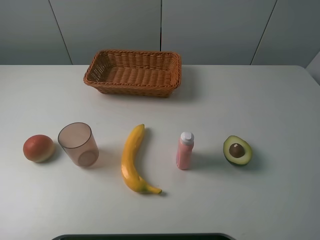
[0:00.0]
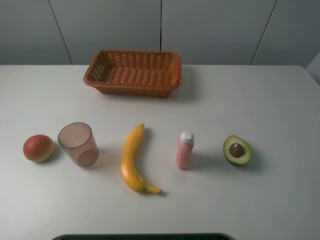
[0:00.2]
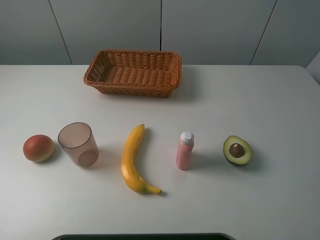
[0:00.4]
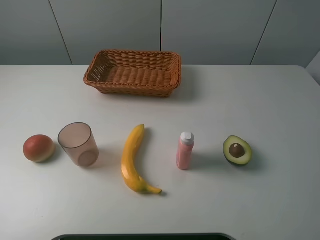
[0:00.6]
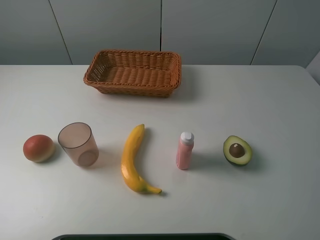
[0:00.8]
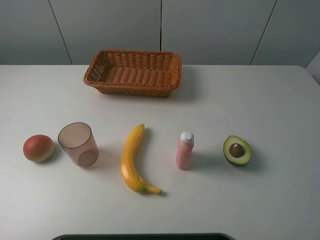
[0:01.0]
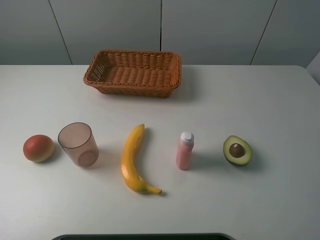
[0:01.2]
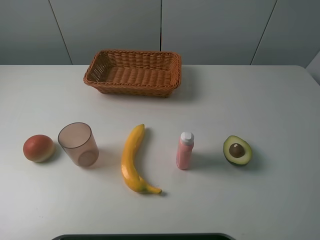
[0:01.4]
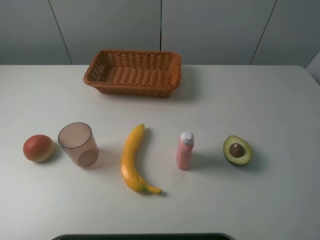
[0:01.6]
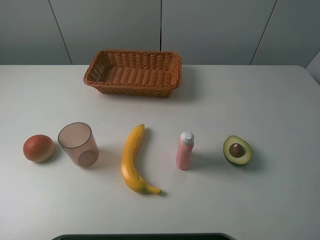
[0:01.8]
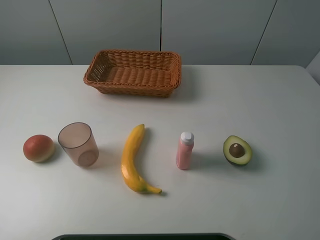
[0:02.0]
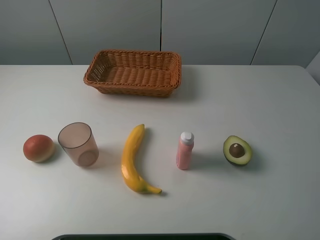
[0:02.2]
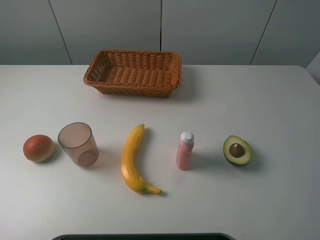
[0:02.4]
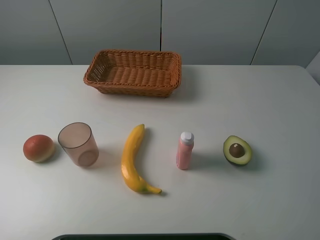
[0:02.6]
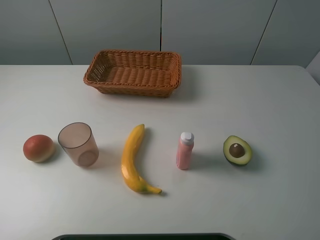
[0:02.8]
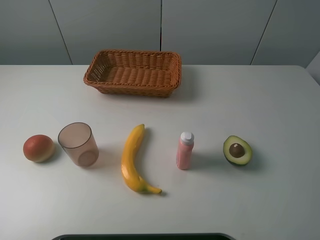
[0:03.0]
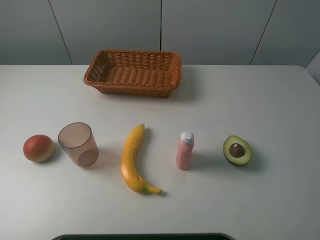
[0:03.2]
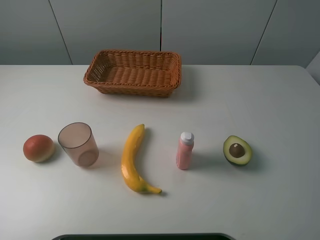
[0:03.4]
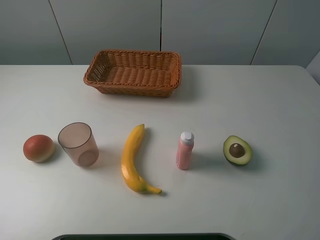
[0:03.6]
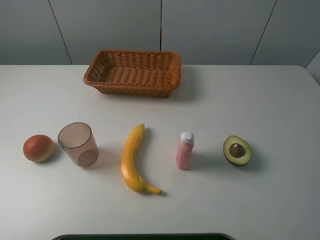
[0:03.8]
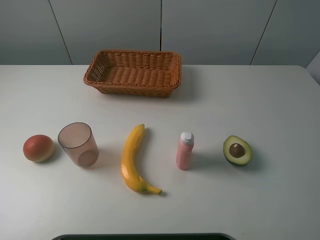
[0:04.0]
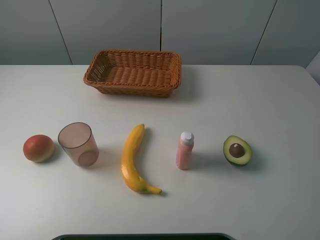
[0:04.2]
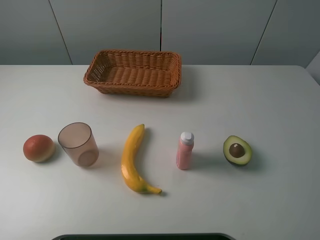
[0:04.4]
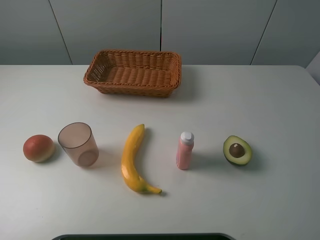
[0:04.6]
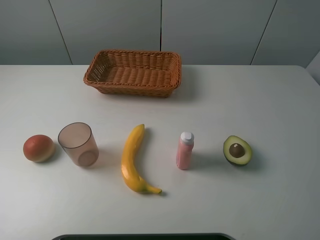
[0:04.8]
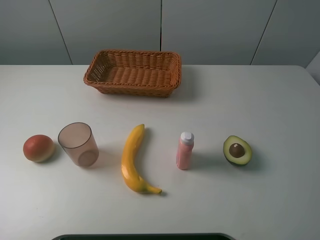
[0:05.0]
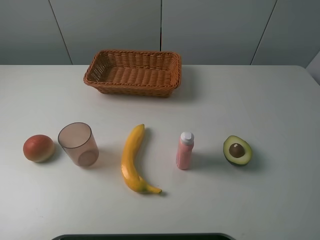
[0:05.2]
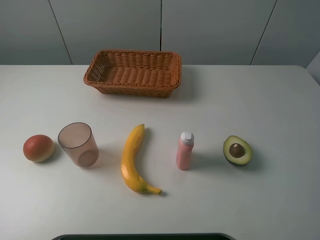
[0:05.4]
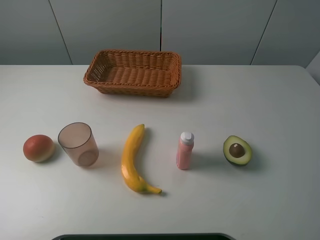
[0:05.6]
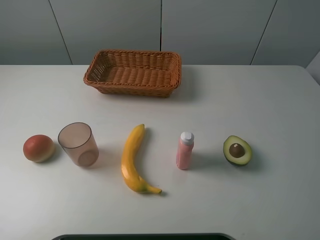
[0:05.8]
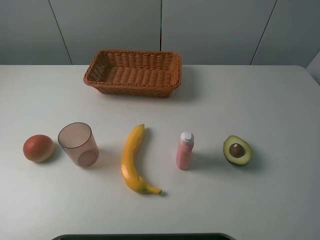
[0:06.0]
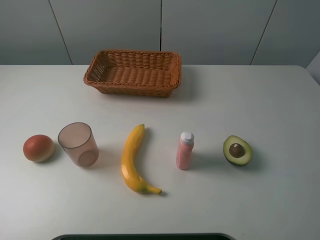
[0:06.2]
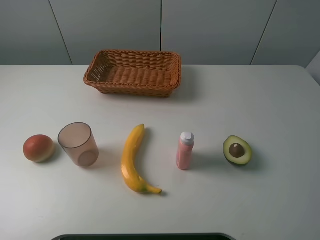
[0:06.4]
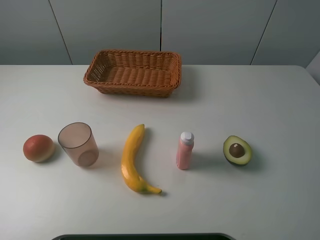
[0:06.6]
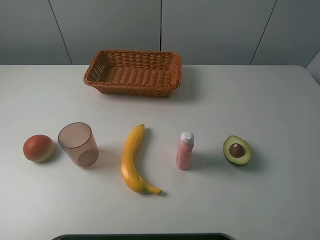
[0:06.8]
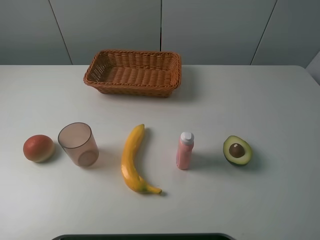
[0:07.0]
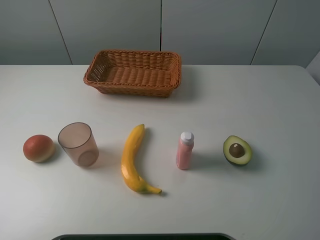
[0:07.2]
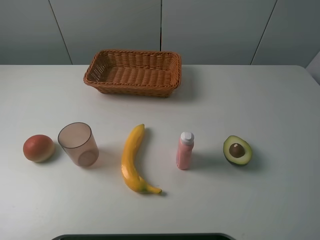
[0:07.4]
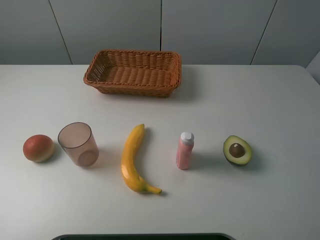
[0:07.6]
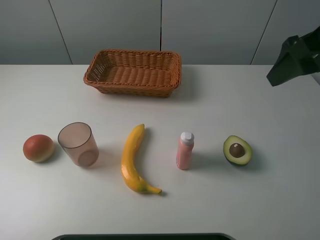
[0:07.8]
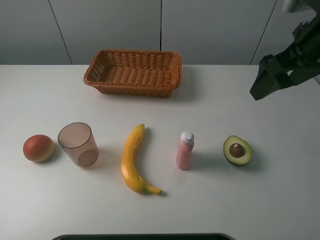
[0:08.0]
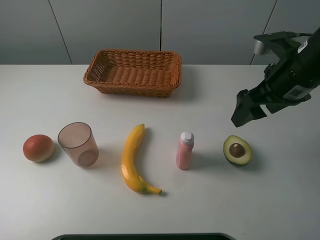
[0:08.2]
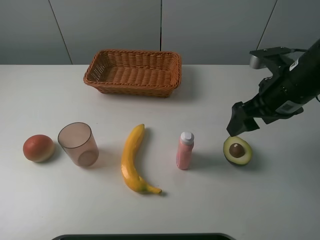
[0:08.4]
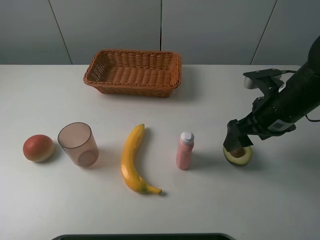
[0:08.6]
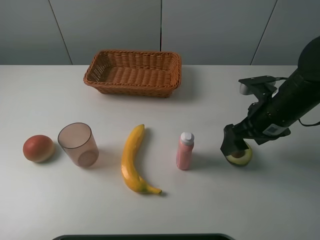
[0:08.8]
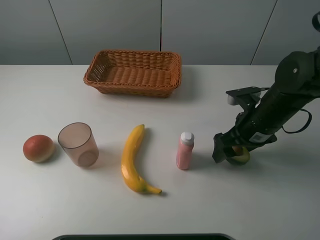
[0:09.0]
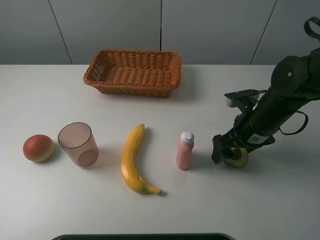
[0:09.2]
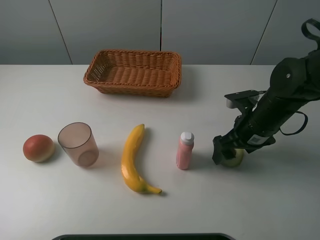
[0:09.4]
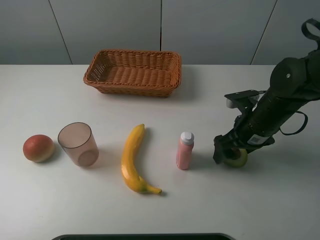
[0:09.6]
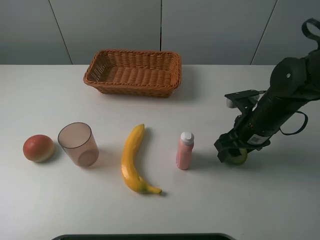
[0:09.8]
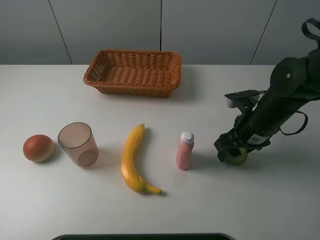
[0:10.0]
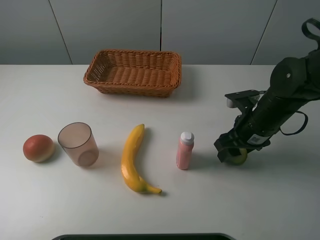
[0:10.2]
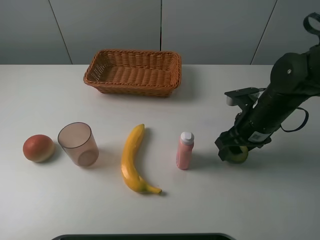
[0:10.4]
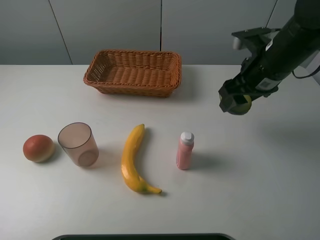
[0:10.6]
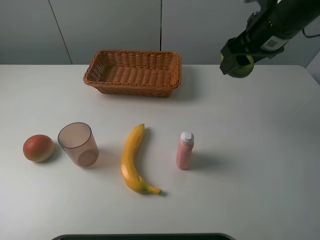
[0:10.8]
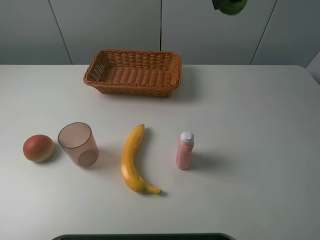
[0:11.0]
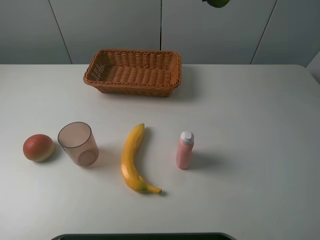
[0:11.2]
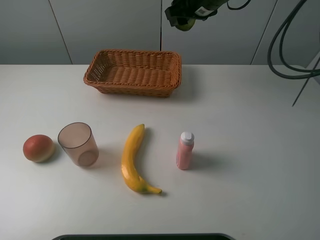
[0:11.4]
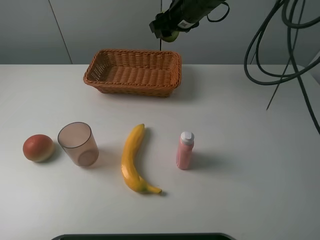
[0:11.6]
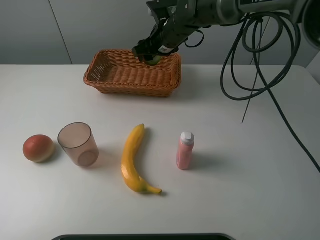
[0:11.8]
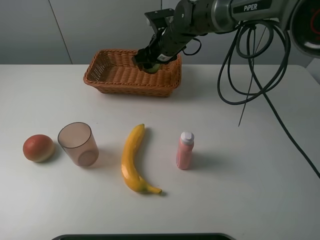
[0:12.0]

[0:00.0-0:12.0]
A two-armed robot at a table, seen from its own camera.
Task of the whole recording: randomly pick up an item from the table and put it in the basket.
Step, 0.0 to 10.2 s: Grasp the avocado with the right gripper.
0.0 to 6.0 s: Both grippers stay about where they are.
7.6 to 9.0 s: The right gripper moves downward, roughly 25 cm.
9.0 to 10.4 s: The right gripper closes up.
10.4 to 12.0 s: The right gripper moves forward and to the left, about 25 cm, and reaches about 20 cm upward, then returns.

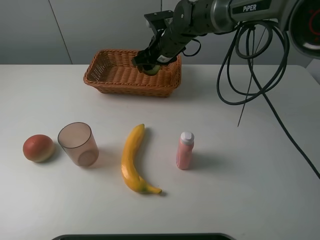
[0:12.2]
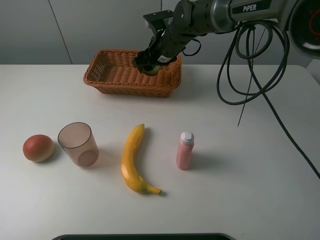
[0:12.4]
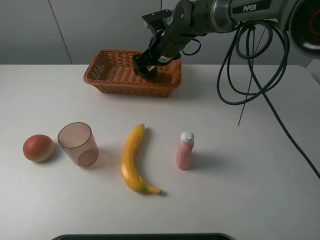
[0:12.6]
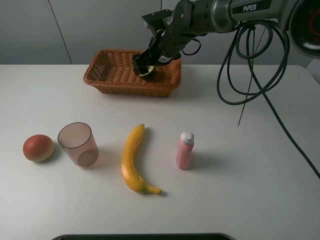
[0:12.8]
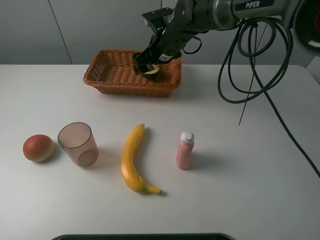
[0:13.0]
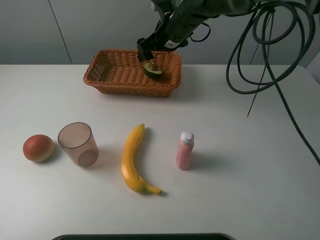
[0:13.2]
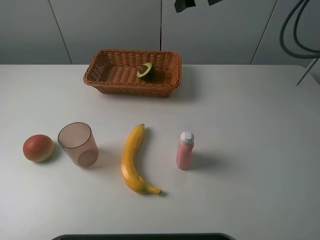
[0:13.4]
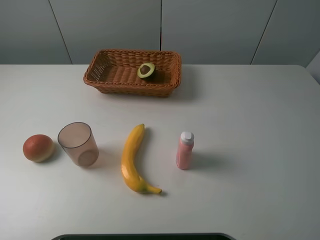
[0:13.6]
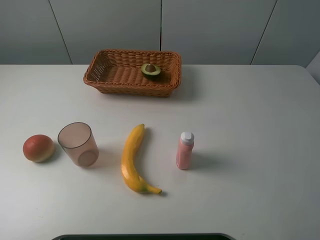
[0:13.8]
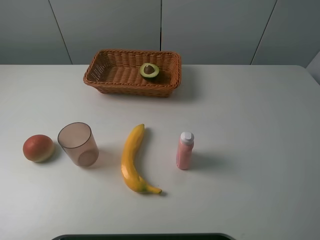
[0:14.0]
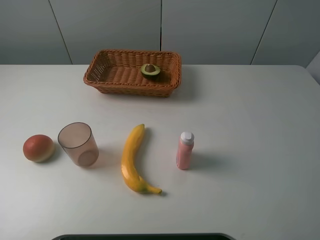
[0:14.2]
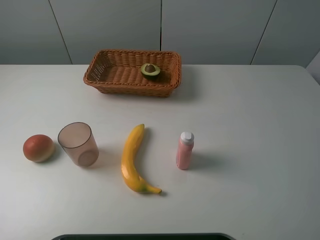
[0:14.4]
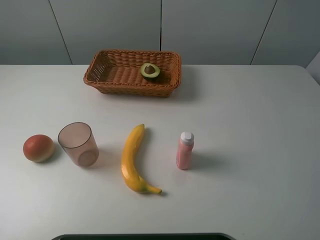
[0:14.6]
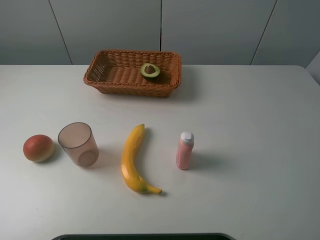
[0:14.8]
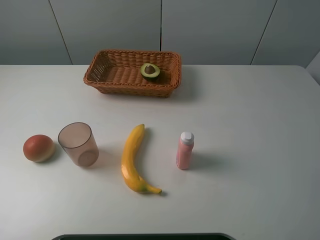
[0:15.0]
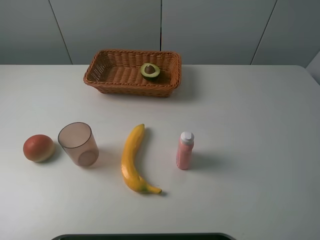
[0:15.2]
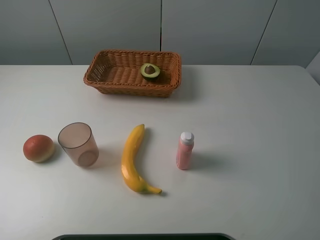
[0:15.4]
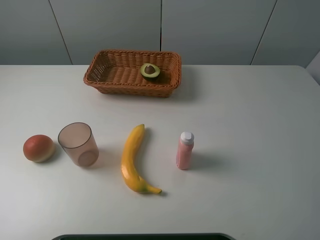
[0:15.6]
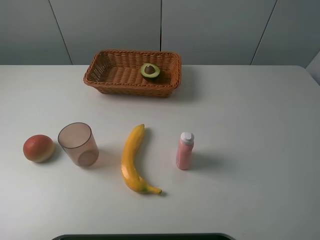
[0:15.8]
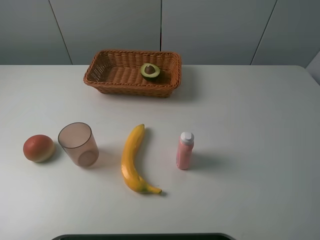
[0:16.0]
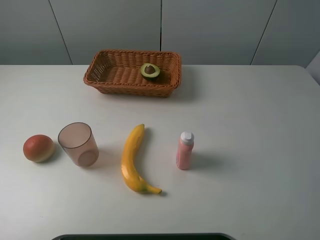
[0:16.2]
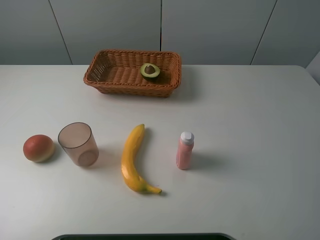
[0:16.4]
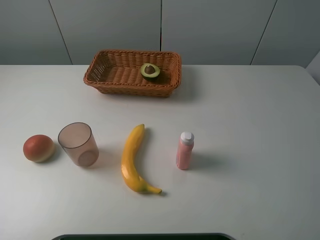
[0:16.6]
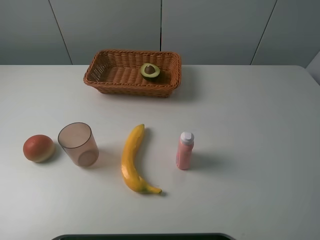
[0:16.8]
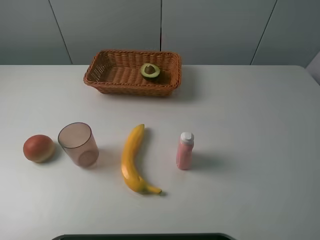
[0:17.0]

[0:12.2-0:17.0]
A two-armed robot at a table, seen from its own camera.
Task of the whole recording: randomly pick up an item from the table and put it in the basket.
12.2 to 13.8 s: The right gripper travels upward and to the right by roughly 40 cm, and opens up.

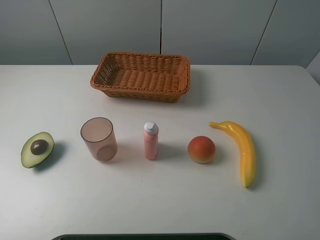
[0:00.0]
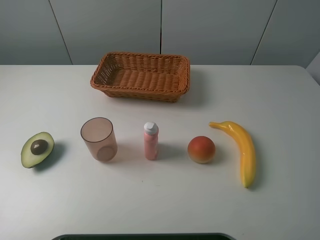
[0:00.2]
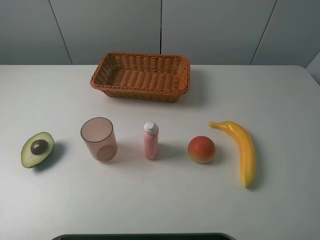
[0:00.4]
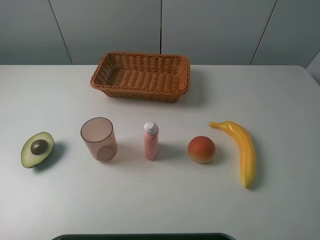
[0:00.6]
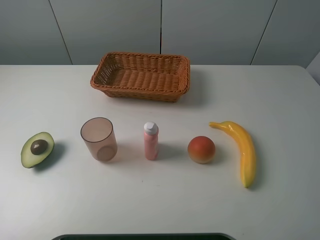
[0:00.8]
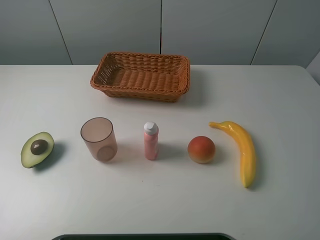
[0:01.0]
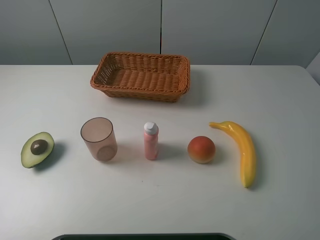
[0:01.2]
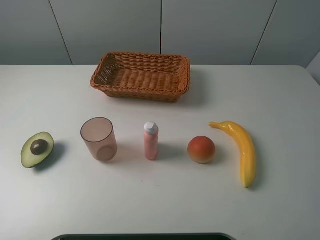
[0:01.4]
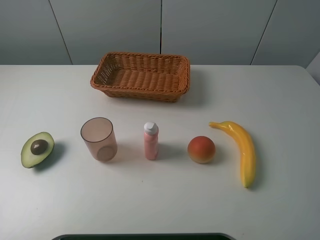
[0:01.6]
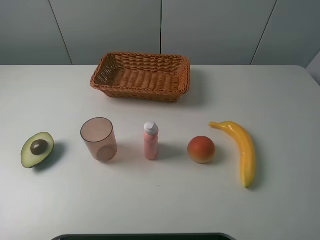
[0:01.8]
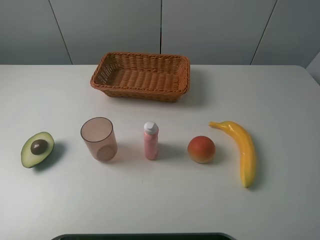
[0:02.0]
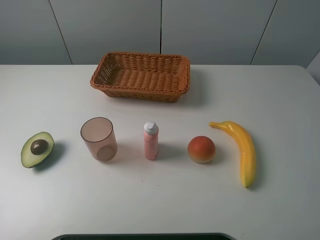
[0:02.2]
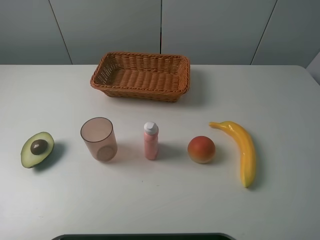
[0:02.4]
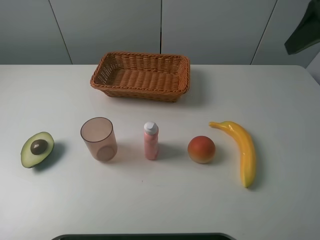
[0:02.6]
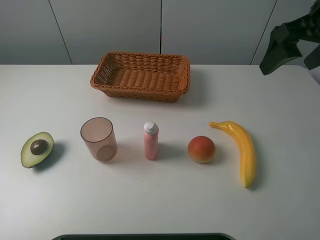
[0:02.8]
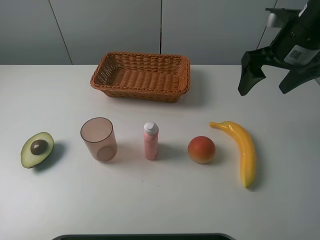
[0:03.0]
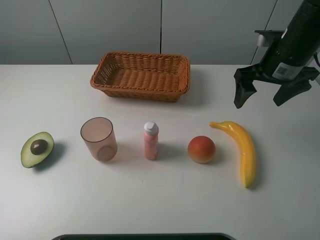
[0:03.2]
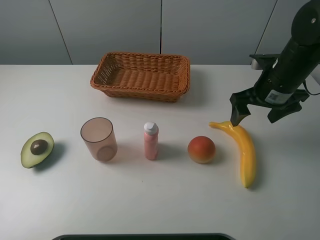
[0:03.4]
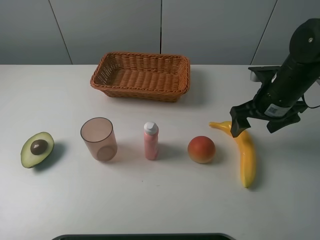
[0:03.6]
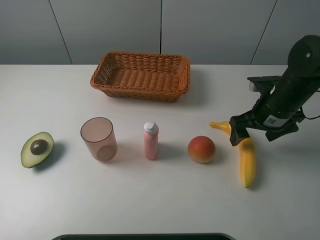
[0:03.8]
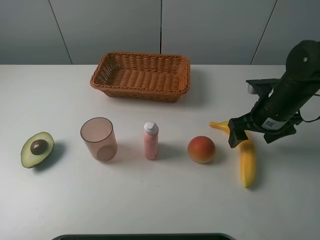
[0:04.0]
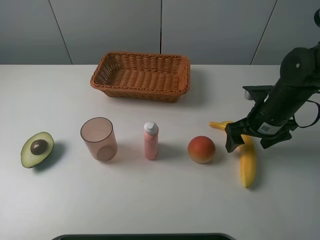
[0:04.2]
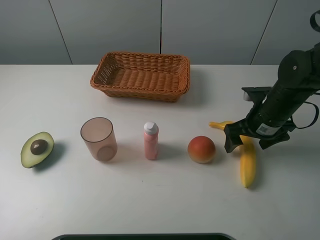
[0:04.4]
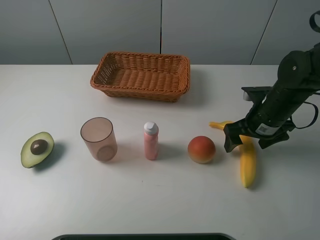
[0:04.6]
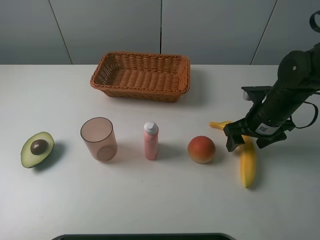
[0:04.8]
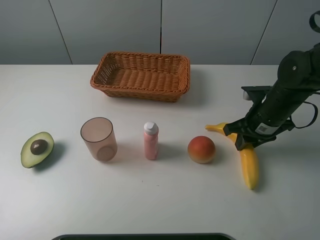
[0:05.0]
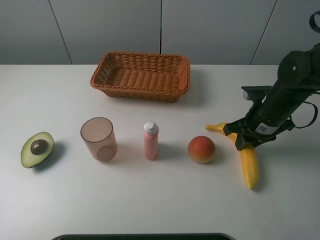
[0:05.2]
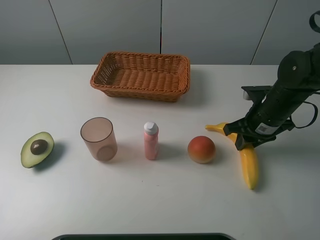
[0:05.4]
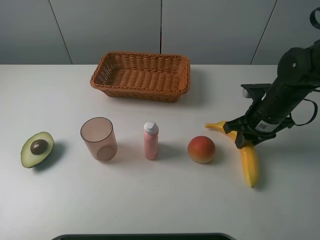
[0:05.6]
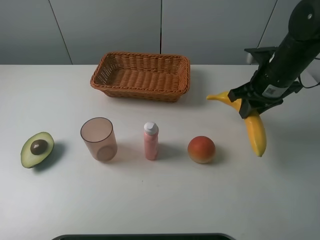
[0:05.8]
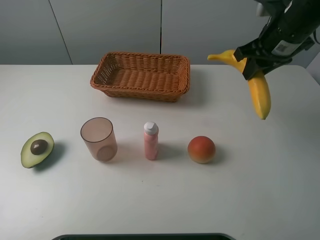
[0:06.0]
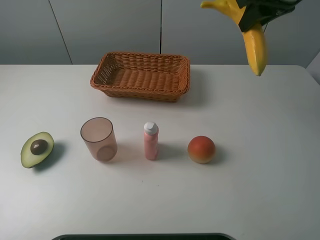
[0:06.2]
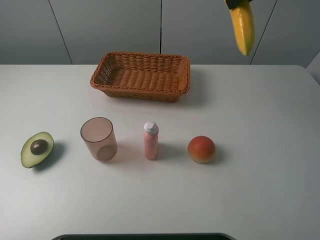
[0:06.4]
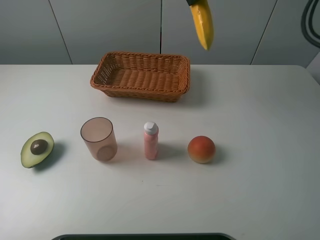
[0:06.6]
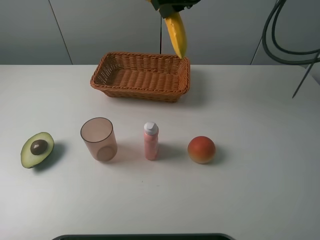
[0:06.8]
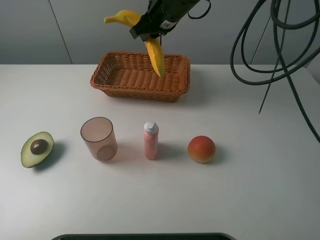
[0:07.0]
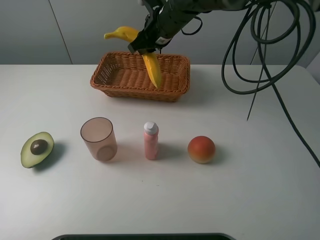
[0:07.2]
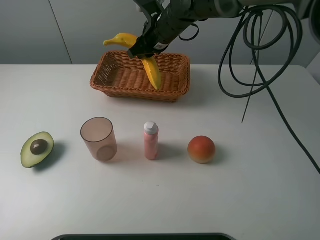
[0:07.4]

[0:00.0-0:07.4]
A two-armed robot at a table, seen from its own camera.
Task of the whole recording: randomly pick up an item from the table and put it in the basket.
Step, 0.0 to 5.2 s: Grasp the banana with the right gripper.
0.0 to 1.4 s: The two grippers keep their place.
1.4 to 3.0 s: The right gripper shifts some 30 cm forward.
3.0 to 4.4 s: The right gripper is displaced downward by approximately 15 cm.
4.4 to 6.0 s: The right gripper moves upward and forward, roughly 15 cm, and closes.
6.0 to 7.4 s: The right gripper travels to the left and forward by approximately 25 cm.
